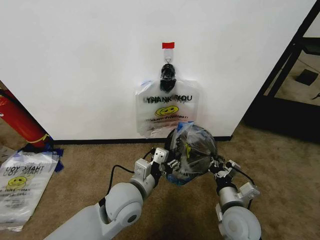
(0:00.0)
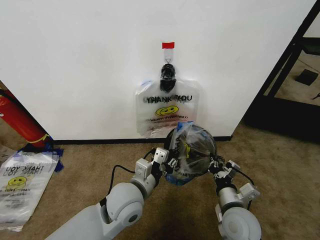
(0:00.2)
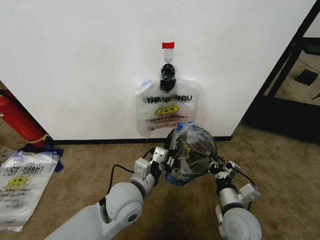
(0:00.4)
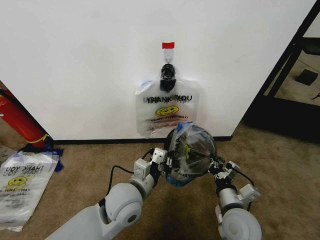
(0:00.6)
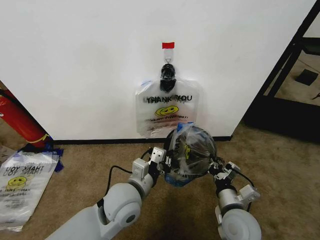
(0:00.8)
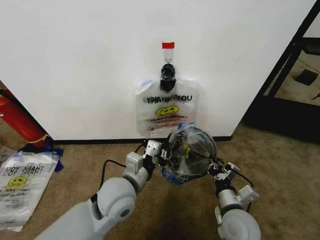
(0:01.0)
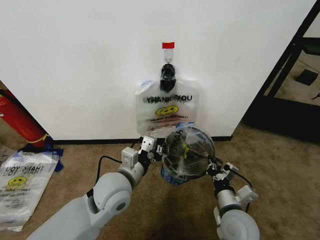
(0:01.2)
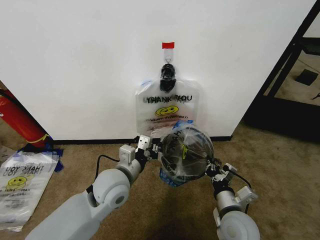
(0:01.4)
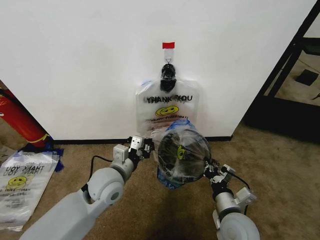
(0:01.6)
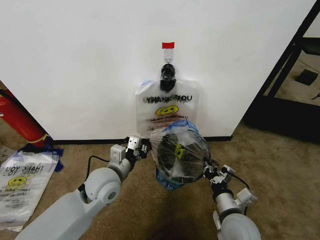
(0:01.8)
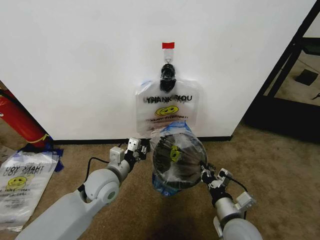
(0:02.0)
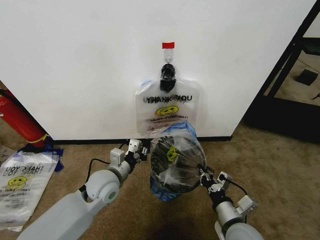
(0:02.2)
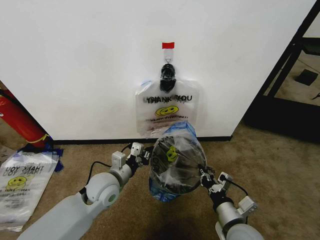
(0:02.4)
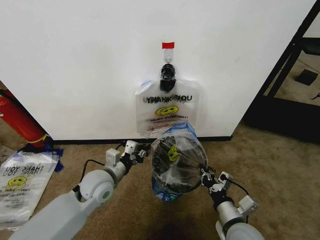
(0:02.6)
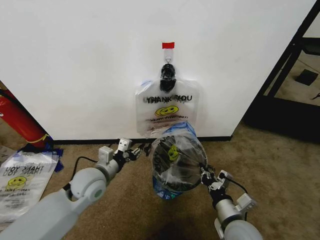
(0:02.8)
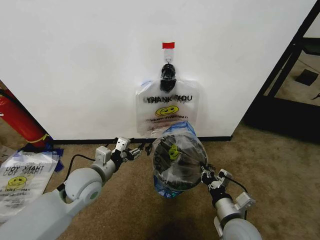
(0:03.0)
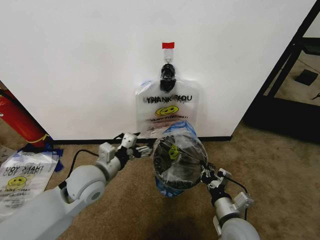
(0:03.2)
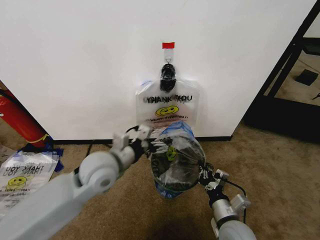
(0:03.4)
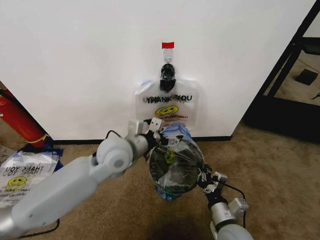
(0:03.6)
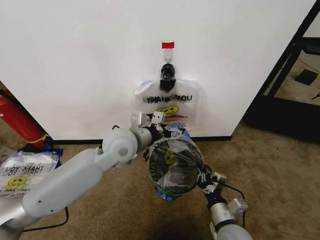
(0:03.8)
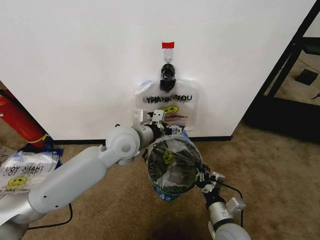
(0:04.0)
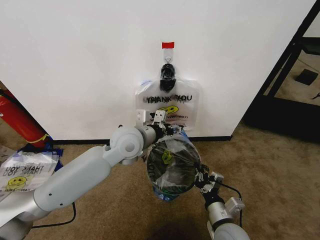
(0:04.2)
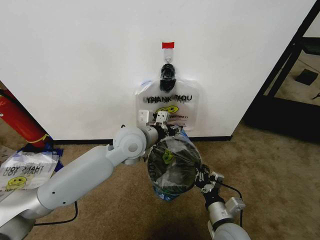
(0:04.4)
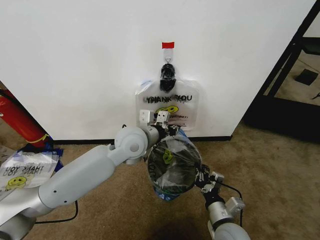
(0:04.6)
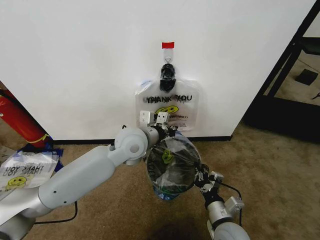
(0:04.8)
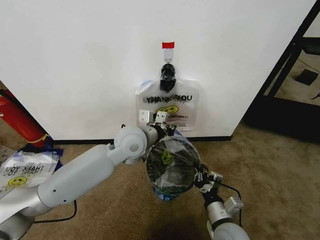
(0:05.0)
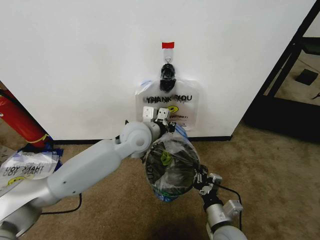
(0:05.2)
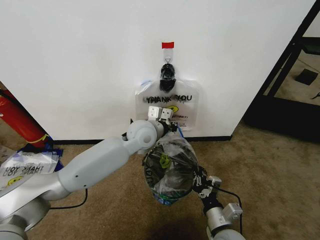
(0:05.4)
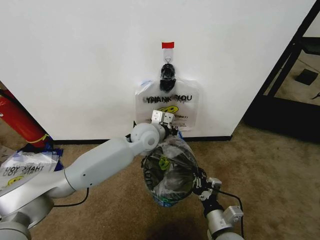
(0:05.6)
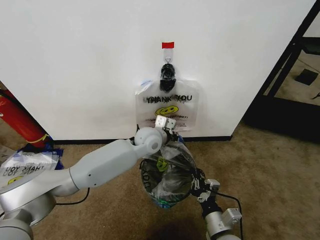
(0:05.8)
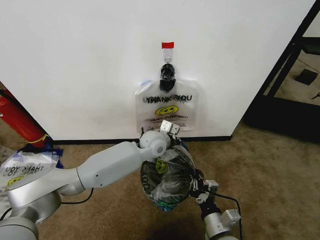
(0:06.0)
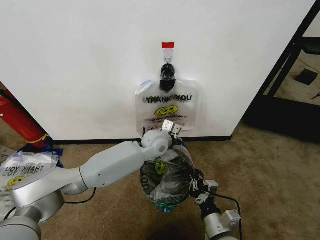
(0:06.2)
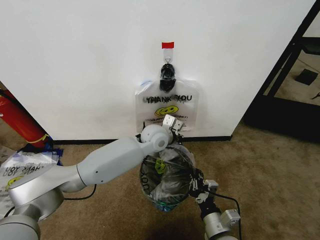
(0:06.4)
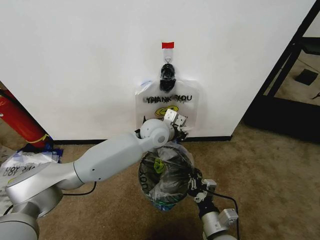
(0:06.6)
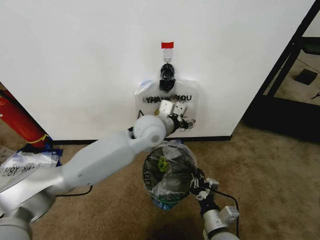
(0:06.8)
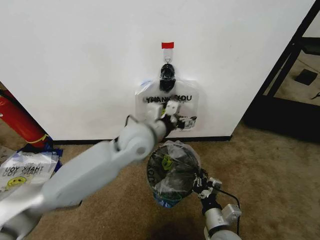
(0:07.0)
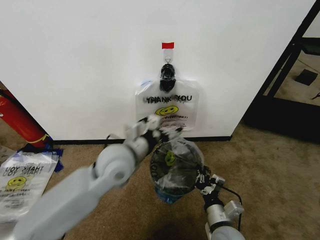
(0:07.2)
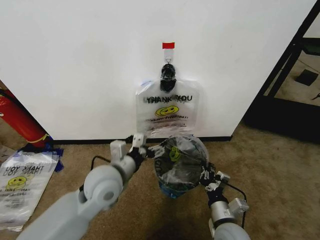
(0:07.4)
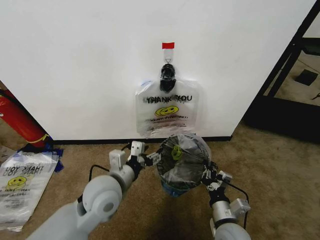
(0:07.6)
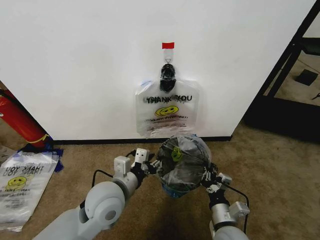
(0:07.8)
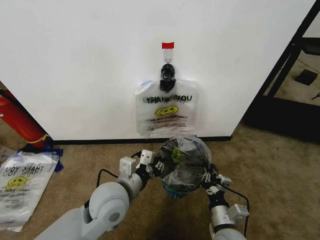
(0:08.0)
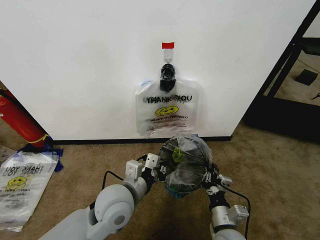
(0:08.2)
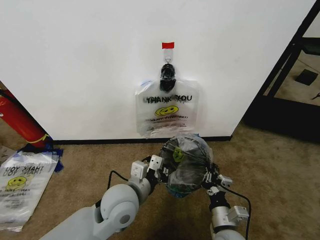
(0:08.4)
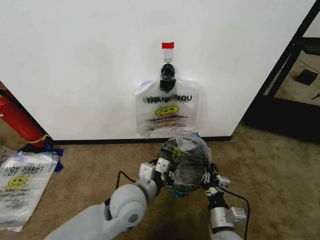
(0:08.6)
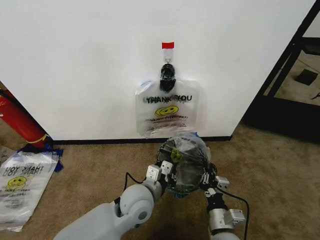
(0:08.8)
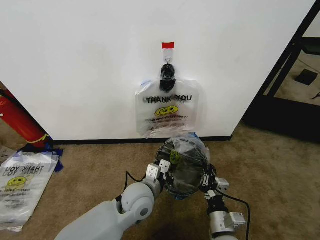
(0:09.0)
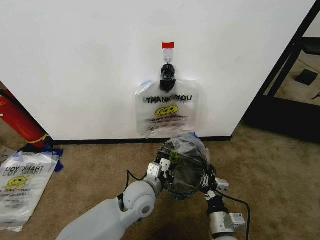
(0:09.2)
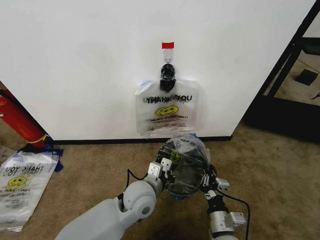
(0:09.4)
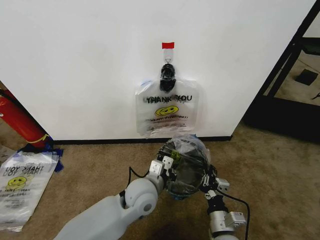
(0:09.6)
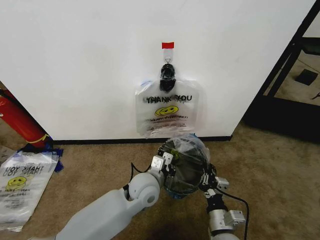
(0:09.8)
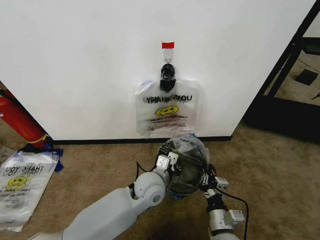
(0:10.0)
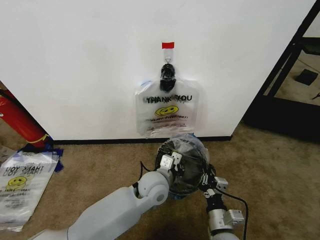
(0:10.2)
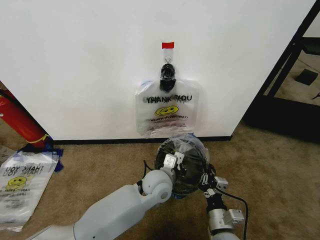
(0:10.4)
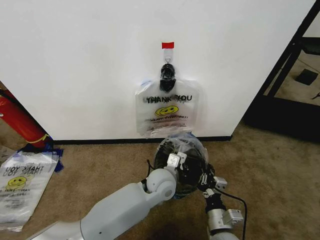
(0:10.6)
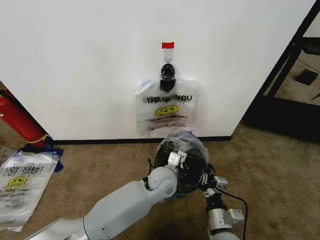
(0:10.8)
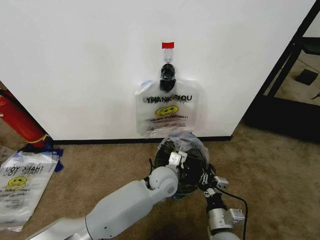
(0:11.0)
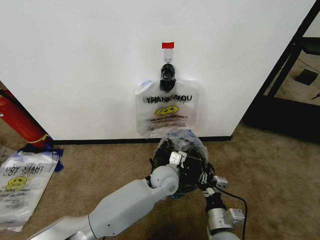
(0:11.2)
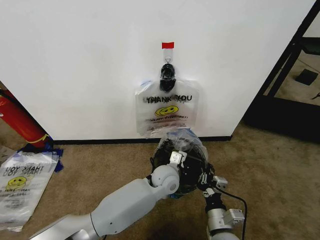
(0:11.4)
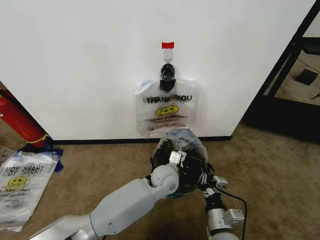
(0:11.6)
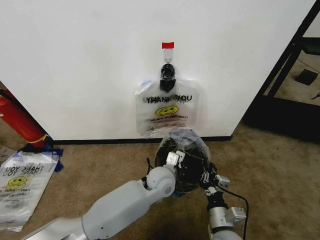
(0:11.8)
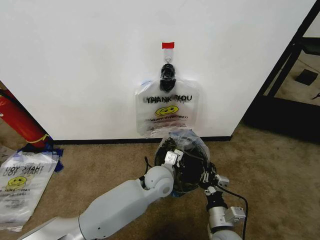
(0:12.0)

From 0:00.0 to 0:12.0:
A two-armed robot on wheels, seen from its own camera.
Task of the whole recording: Pick up the garbage bag from the wall and place it over the trash bin.
From 0:00.0 to 0:01.6: The left gripper shifts approximately 5 cm to the left, and closes up.
From 0:01.6 to 0:03.0: The left gripper shifts approximately 5 cm to the left, and opens its fingers.
From 0:03.0 to 0:04.4: The left gripper heads to the right, upward and forward, covering about 20 cm, and opens, then closes once more.
From 0:04.4 to 0:06.0: The left gripper is displaced downward, forward and to the right by some 15 cm, and closes.
From 0:06.0 to 0:07.6: The left gripper shifts about 25 cm backward and to the left, and opens.
From 0:07.6 to 0:09.0: The left gripper shifts some 10 cm to the right and downward, and closes up.
From 0:09.0 to 0:10.4: The left gripper heads to the right, covering approximately 5 cm.
From 0:10.4 to 0:12.0: The grippers make only small movements.

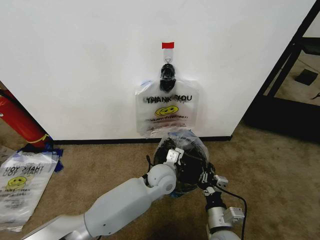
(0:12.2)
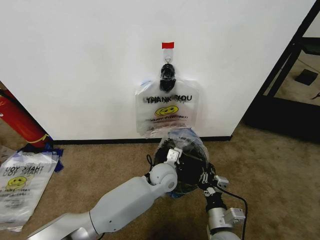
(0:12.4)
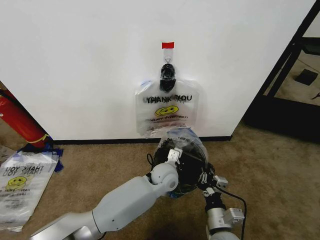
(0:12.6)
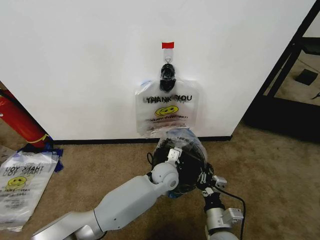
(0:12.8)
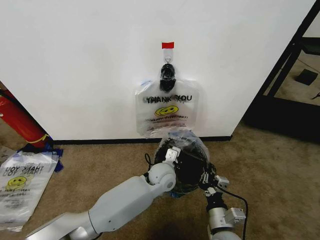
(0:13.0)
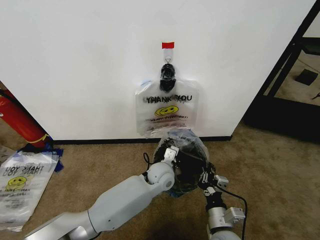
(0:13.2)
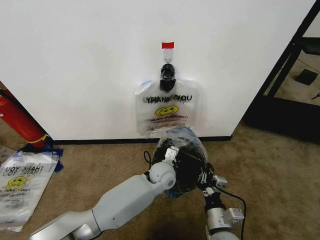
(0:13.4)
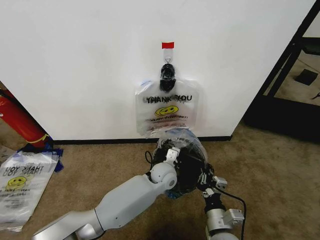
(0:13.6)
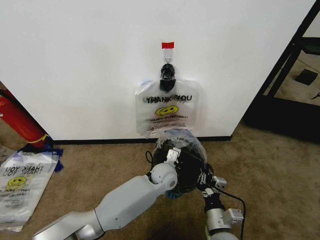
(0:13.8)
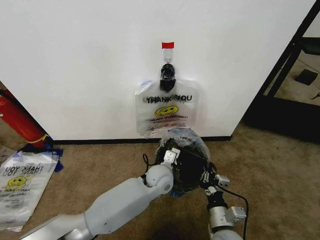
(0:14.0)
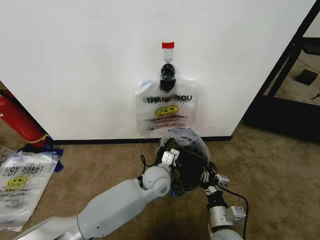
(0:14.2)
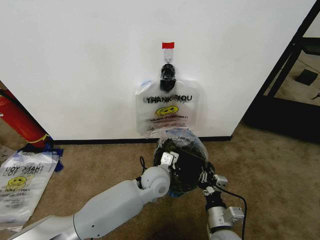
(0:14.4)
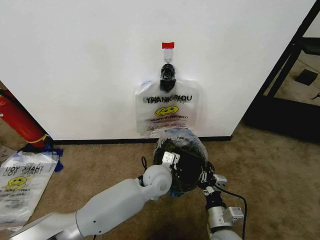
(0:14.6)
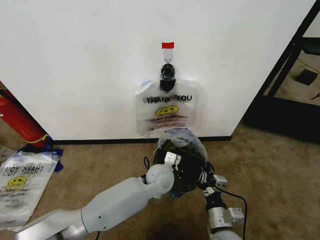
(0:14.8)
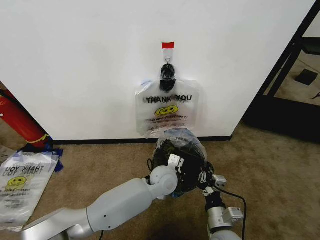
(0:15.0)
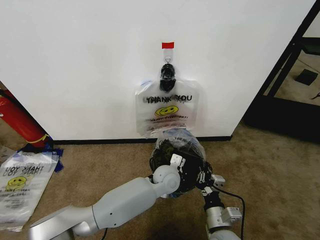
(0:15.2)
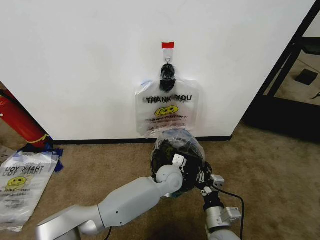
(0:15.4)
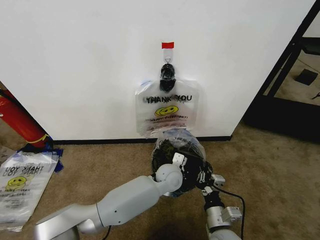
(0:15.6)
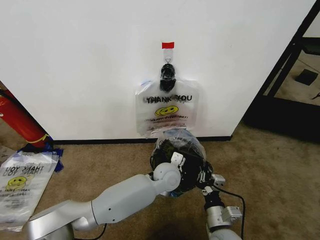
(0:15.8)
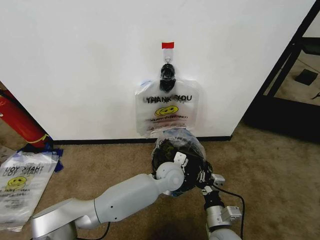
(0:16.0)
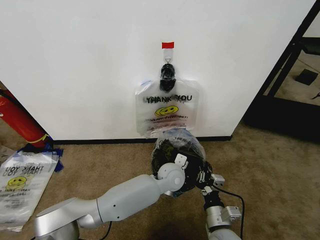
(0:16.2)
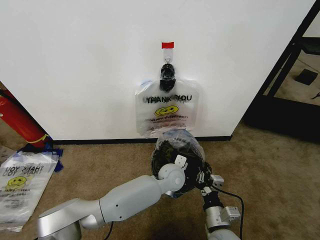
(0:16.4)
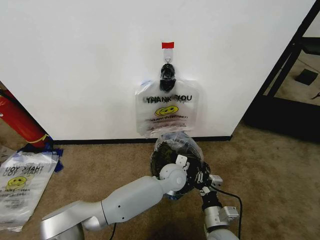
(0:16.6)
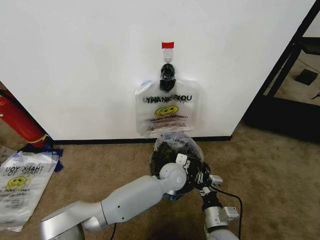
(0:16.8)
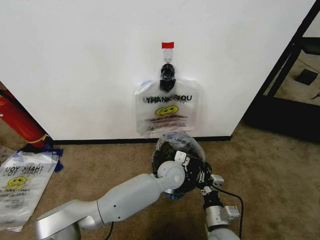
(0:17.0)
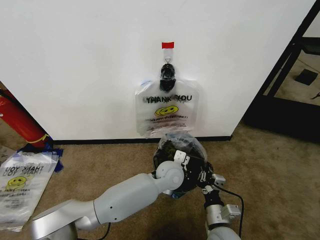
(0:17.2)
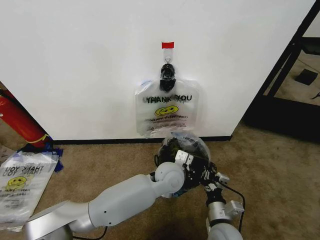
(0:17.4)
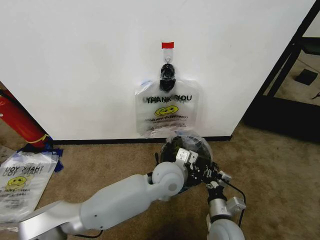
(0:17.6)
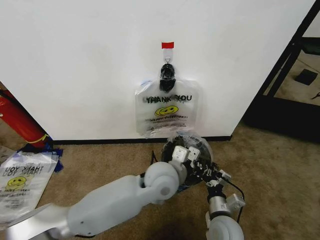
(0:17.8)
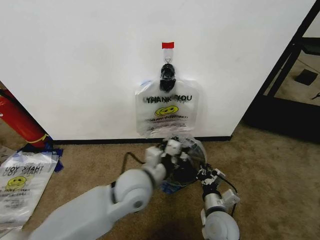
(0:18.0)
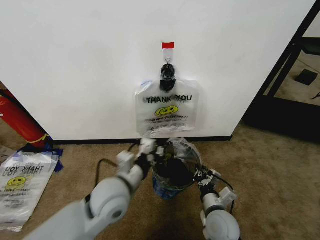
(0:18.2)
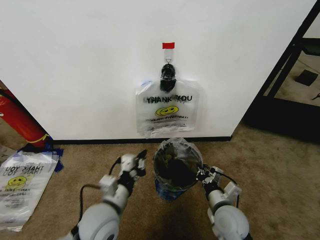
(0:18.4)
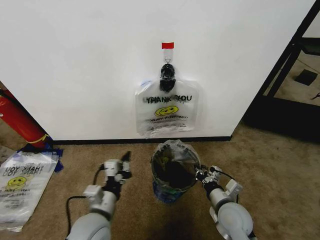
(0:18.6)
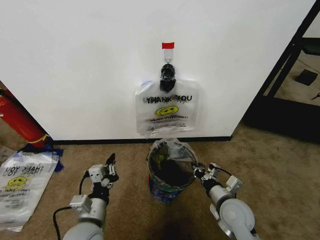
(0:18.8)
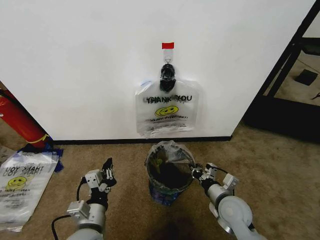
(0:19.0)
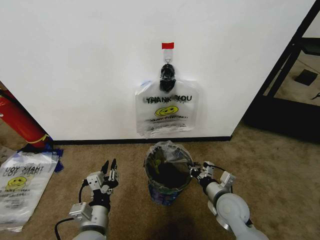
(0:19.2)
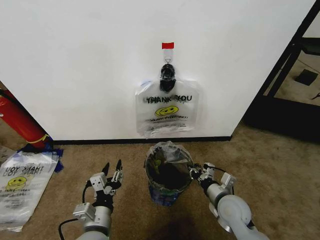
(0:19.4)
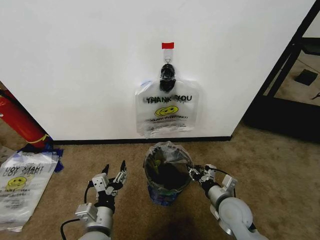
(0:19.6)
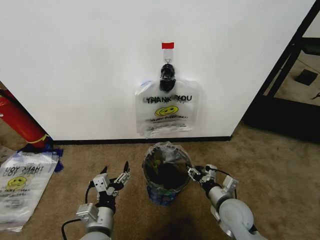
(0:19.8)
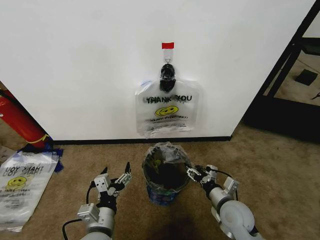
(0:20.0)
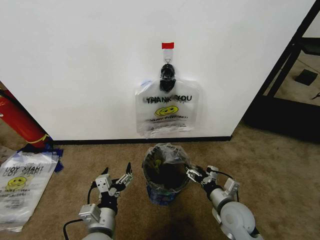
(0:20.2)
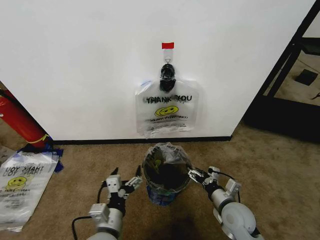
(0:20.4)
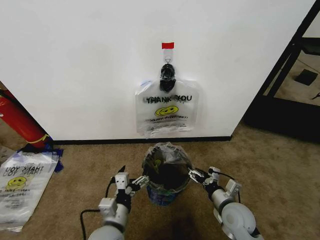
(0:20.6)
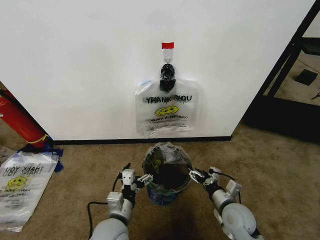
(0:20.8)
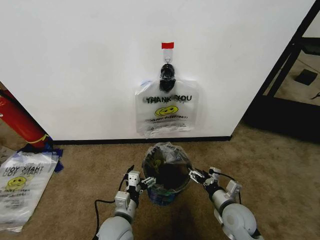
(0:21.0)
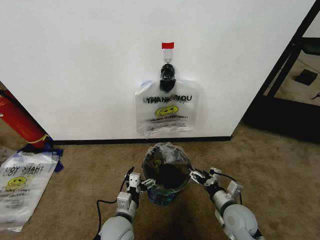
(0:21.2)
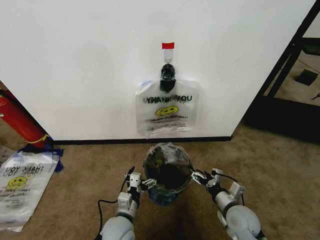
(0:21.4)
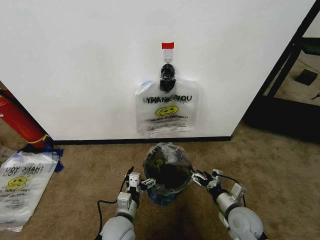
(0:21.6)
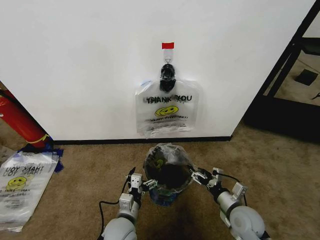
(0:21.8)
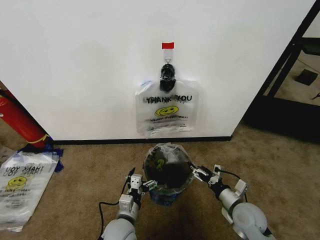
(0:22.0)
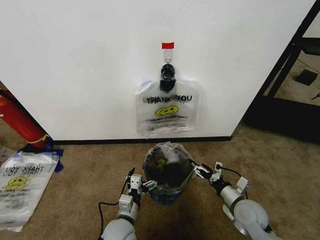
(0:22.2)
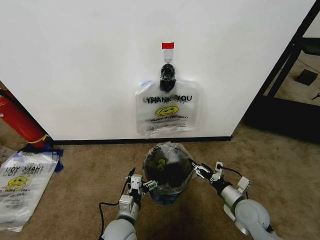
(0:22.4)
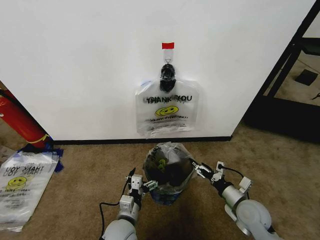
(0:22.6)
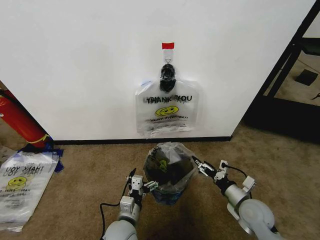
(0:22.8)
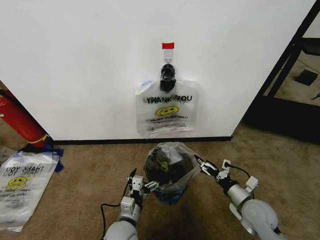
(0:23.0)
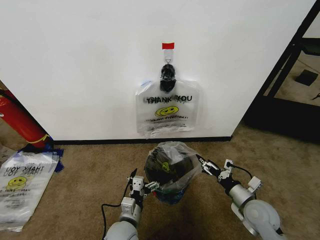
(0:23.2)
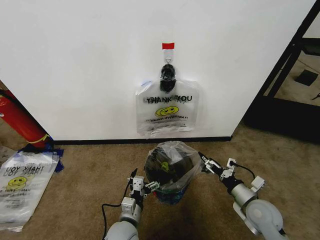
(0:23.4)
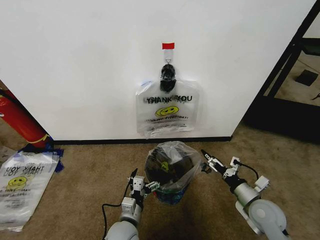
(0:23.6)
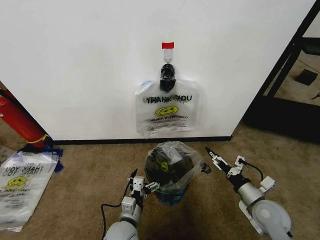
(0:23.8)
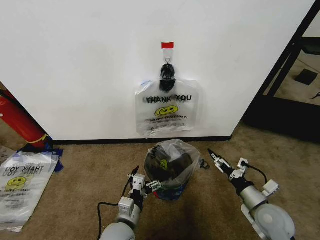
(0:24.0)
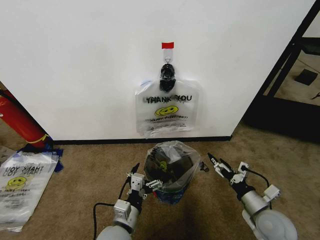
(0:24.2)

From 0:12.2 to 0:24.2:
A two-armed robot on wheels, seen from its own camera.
Task of the whole recording: Pick up the garbage bag from the wall and place it over the trash bin.
From 0:12.2 to 0:13.8: The grippers make only small movements.
From 0:15.2 to 0:16.6: The grippers stay close to where they were, moving slightly.
From 0:16.6 to 0:18.2: The right gripper changes place by approximately 5 cm. The left gripper is displaced to the left, upward and backward by approximately 25 cm.
From 0:18.2 to 0:19.8: The right gripper shifts roughly 5 cm to the right, and opens up. Meanwhile the left gripper moves backward, downward and to the left, some 15 cm, and opens its fingers.
From 0:19.8 to 0:21.2: The left gripper goes some 10 cm downward and forward; the right gripper opens its fingers.
From 0:21.2 to 0:22.6: The grippers move only a little.
From 0:22.6 to 0:24.2: The right gripper moves approximately 5 cm; the left gripper heads upward, covering roughly 5 cm.
